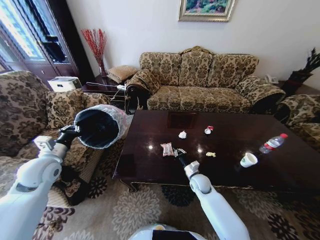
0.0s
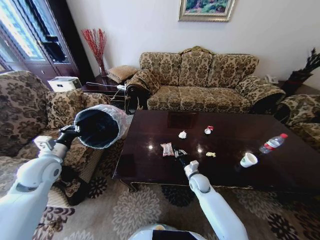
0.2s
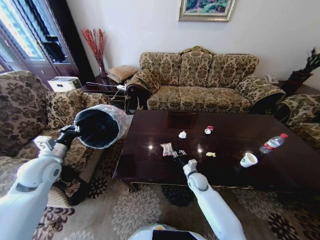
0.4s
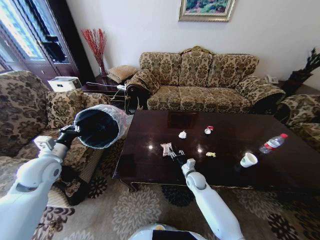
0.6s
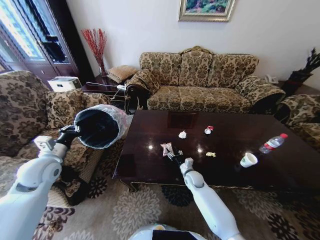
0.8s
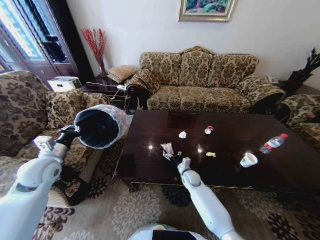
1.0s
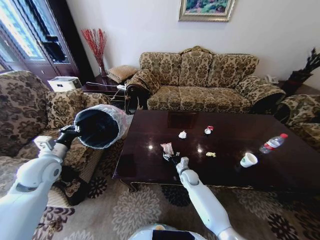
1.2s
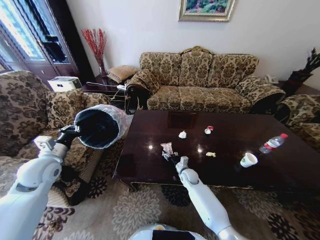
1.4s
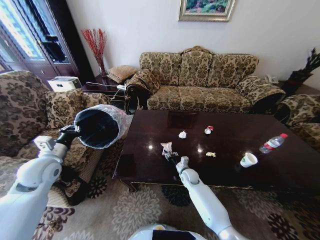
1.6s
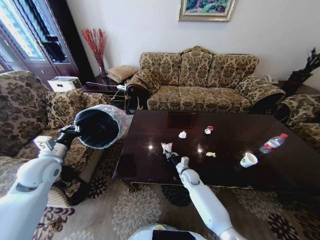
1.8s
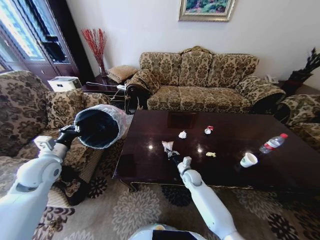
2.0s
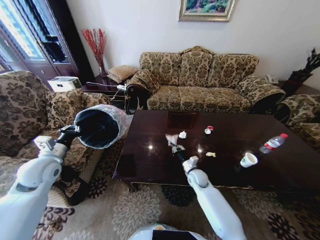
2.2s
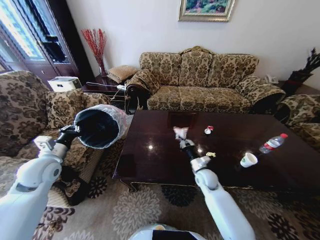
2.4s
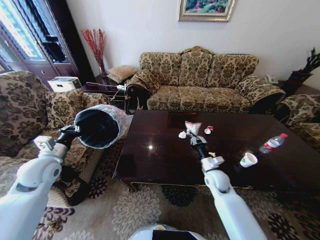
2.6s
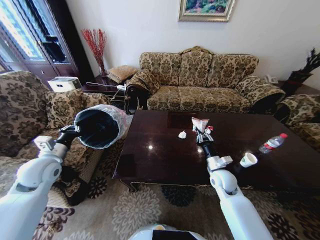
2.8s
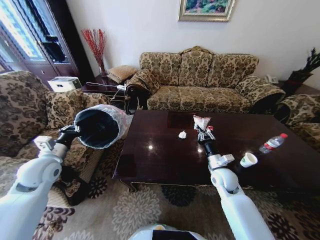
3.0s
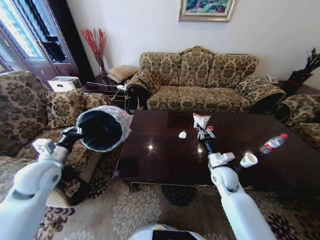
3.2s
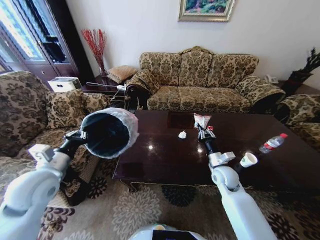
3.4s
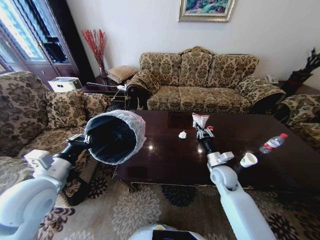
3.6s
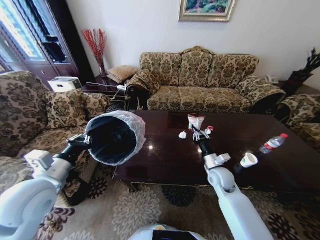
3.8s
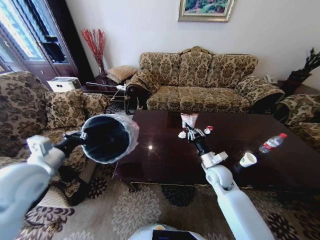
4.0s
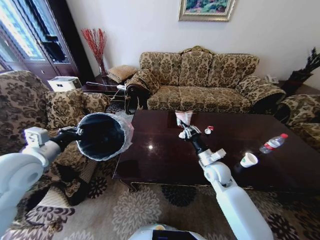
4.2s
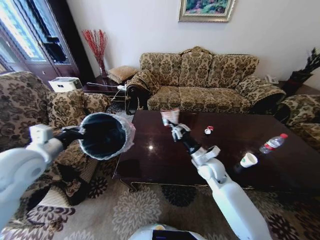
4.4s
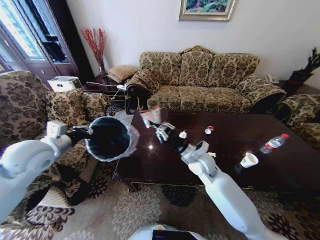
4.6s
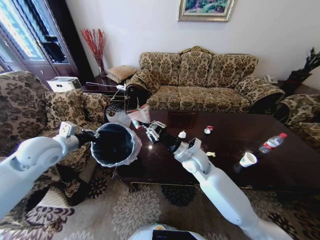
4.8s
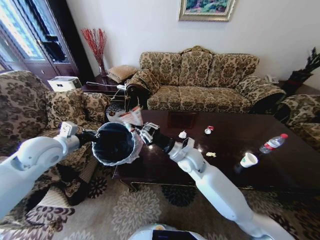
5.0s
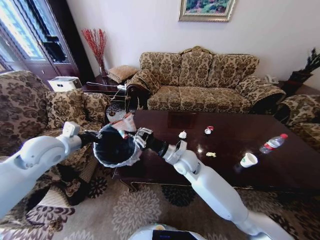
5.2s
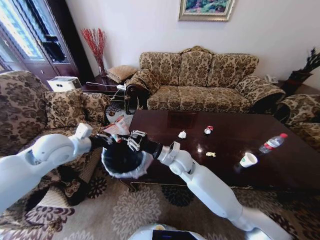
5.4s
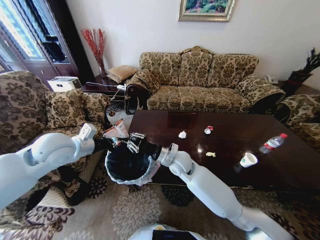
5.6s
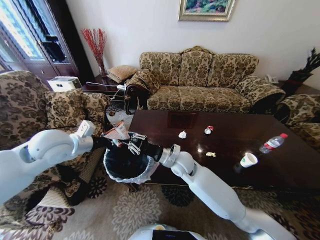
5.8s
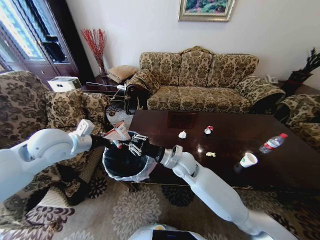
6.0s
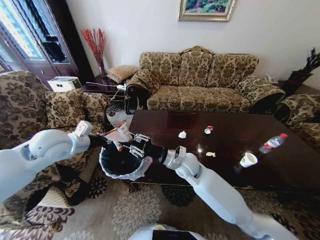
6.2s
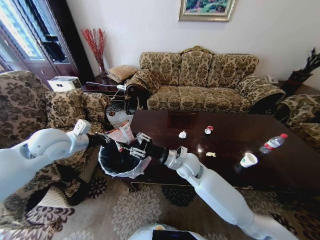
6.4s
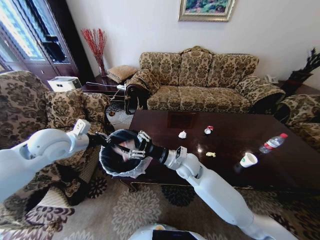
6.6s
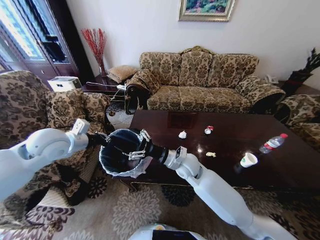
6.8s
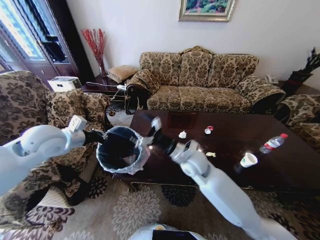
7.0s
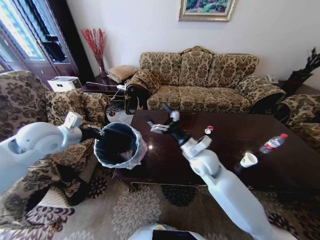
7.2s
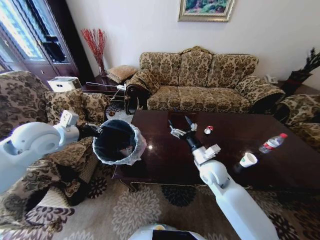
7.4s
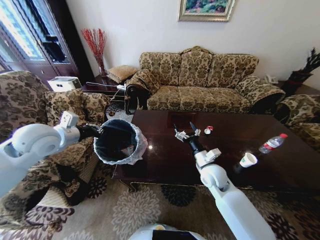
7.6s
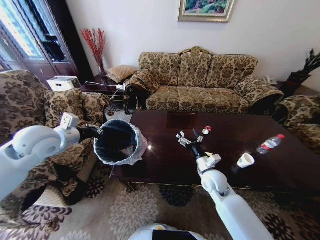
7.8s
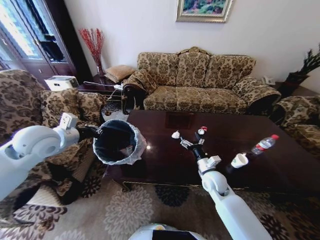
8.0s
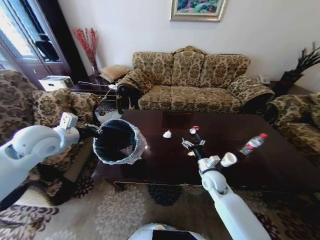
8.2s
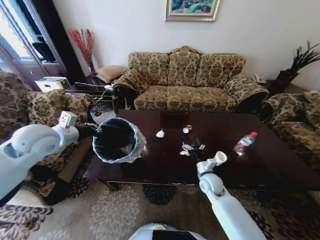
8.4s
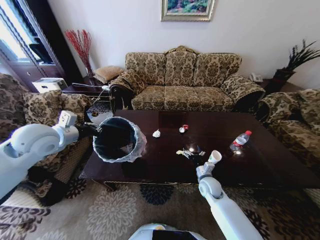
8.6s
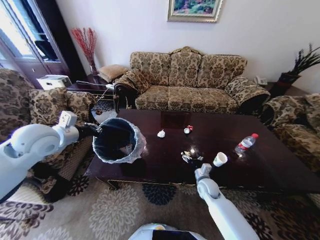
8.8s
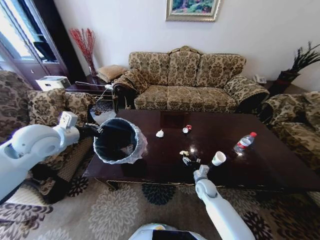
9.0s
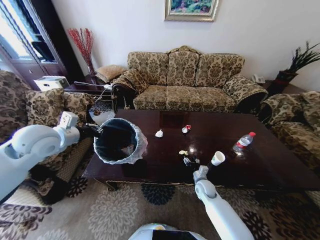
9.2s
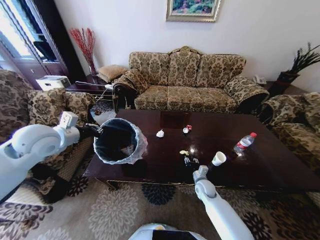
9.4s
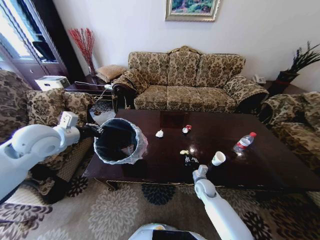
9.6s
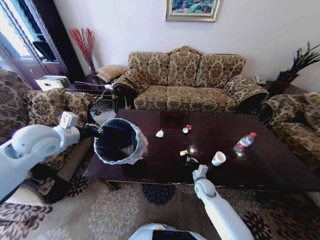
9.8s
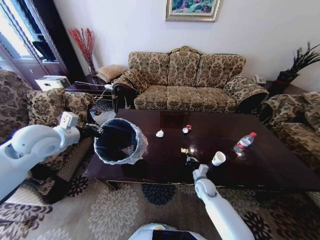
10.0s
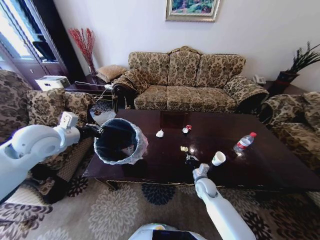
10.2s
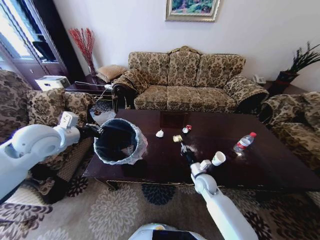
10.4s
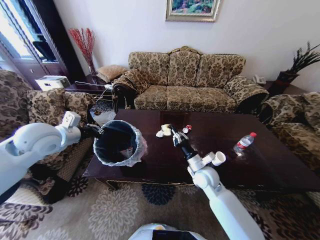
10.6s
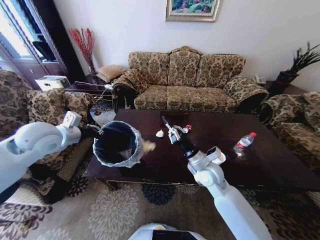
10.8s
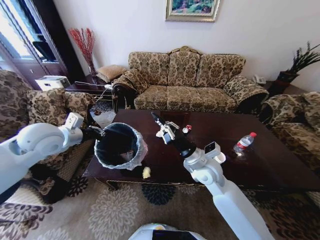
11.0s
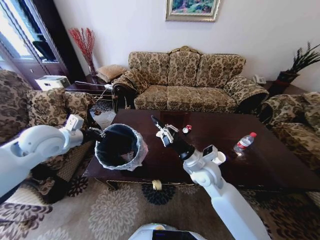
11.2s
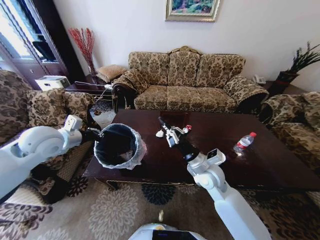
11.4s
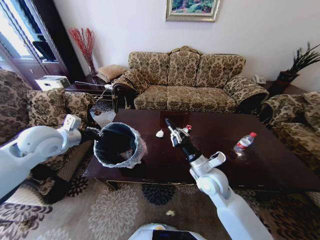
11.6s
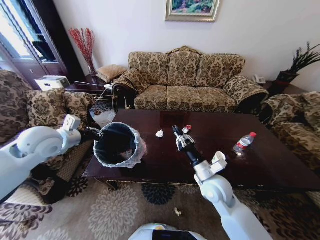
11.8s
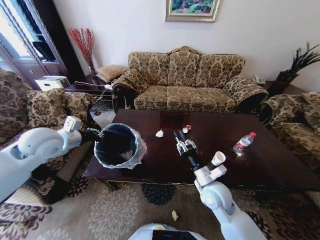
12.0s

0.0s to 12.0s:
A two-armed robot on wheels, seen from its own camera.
Task of the whole recording: Move to the front of the table and place the trash on the table into the trash bin.
0.0s to 1.6s: The right gripper shifts by about 5 cm, and opens up.
1.6s to 3.0s: The right gripper heads upward, to the right and backward, covering roughly 20 cm, and closes its fingers.
3.0s to 4.4s: The right gripper heads to the left, covering about 5 cm, while the left gripper goes some 10 cm upward.
4.4s to 6.0s: The right gripper shifts about 15 cm to the left. Meanwhile the left gripper shifts approximately 10 cm forward and to the right.
6.0s to 7.6s: The right gripper travels to the right by roughly 10 cm, and opens up.
7.6s to 9.0s: The right gripper travels downward by about 20 cm.
9.0s to 10.4s: The right gripper heads upward, covering some 5 cm, and closes its fingers.
10.4s to 12.0s: The right gripper is displaced upward and backward by some 15 cm, and opens its fingers.

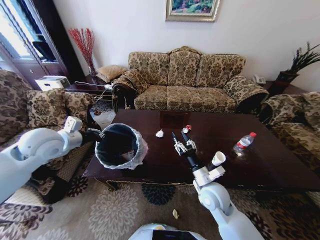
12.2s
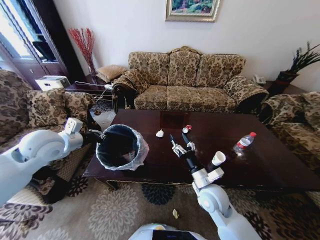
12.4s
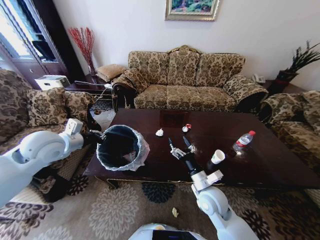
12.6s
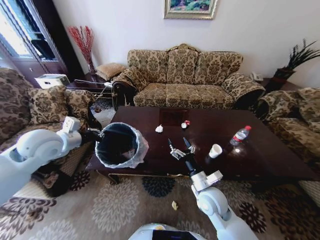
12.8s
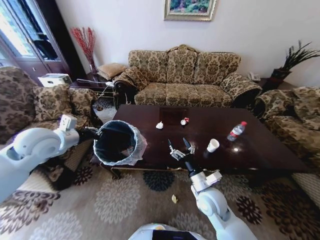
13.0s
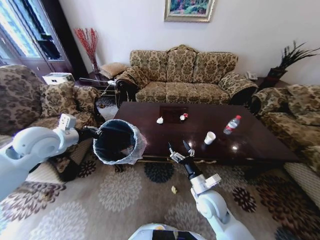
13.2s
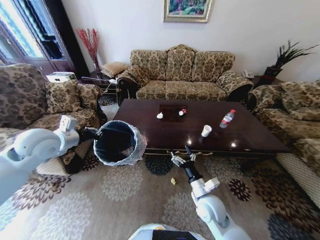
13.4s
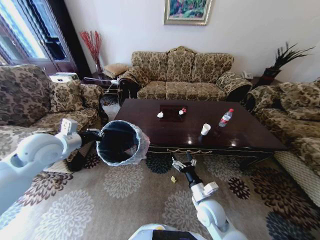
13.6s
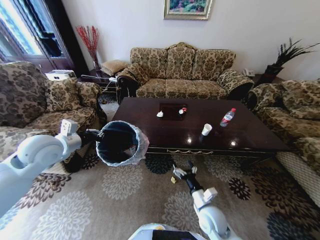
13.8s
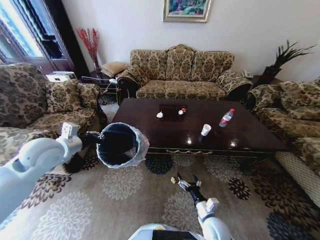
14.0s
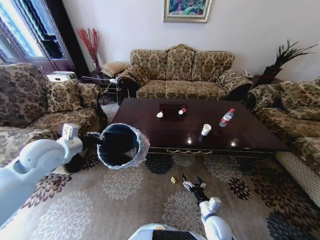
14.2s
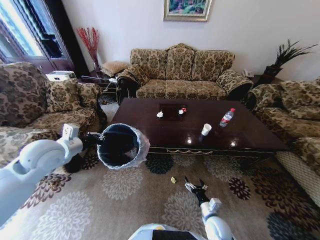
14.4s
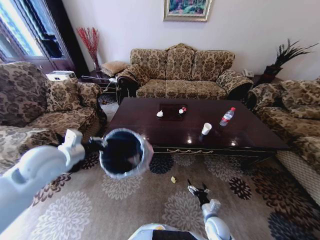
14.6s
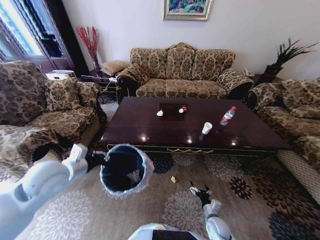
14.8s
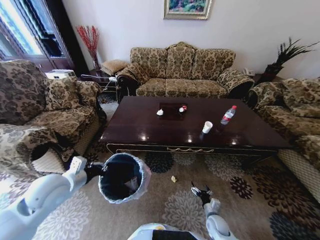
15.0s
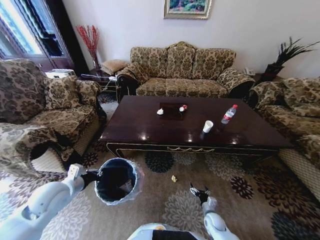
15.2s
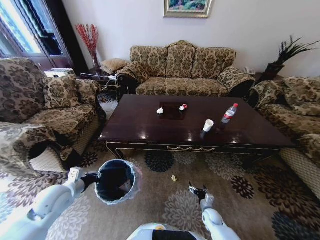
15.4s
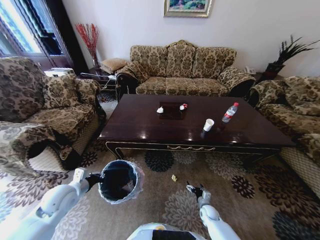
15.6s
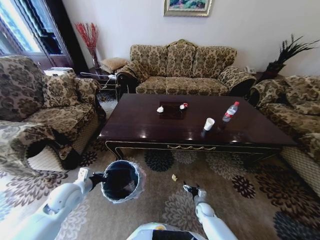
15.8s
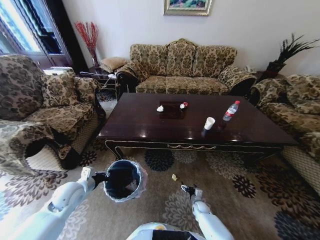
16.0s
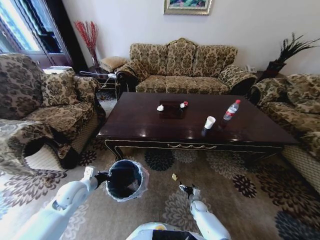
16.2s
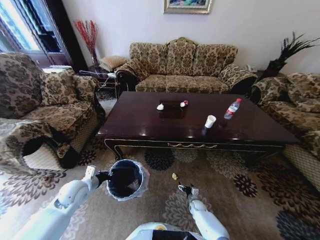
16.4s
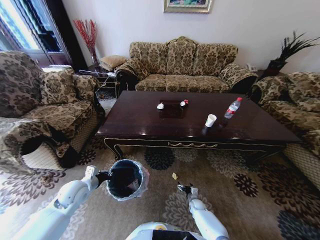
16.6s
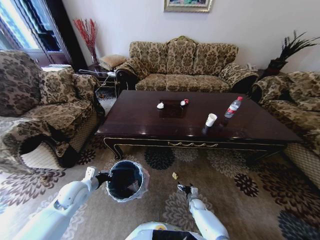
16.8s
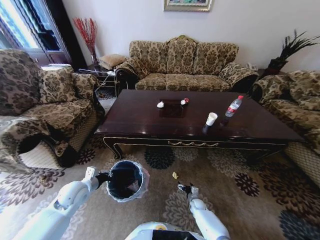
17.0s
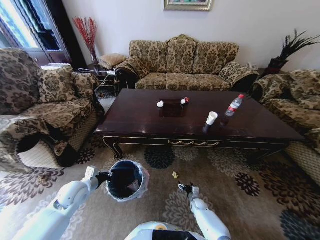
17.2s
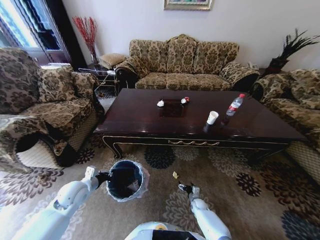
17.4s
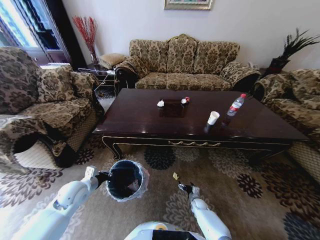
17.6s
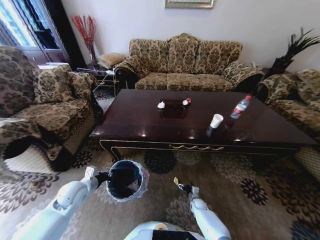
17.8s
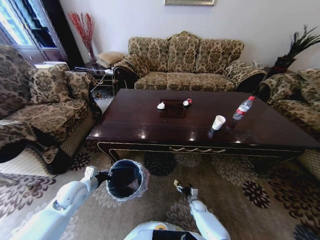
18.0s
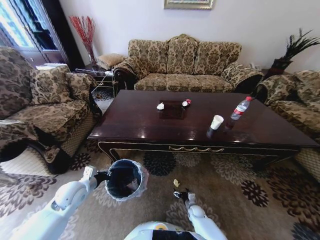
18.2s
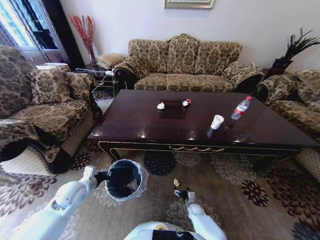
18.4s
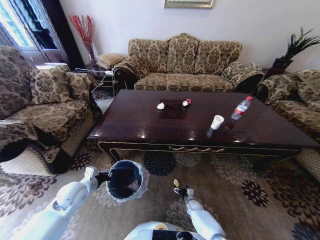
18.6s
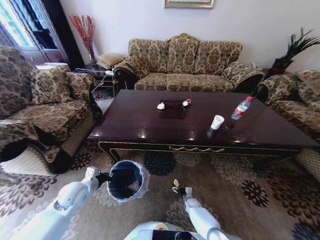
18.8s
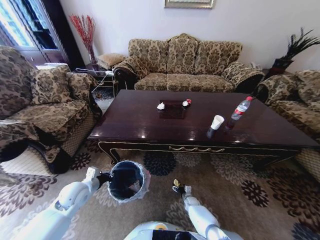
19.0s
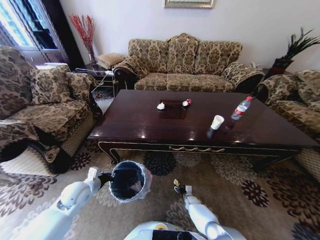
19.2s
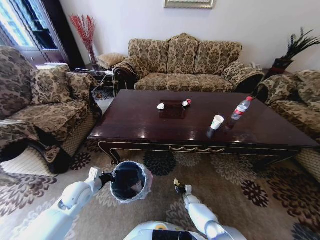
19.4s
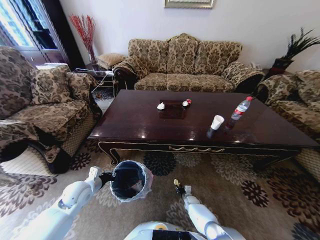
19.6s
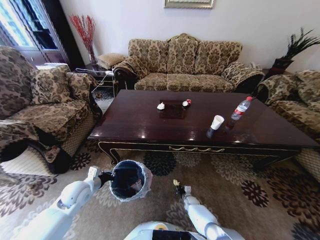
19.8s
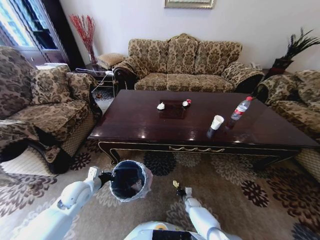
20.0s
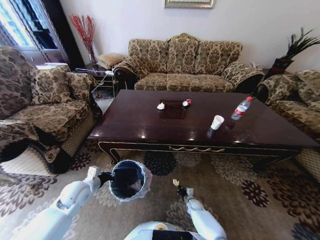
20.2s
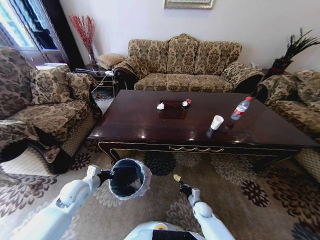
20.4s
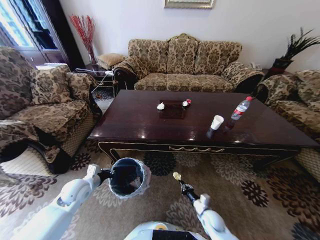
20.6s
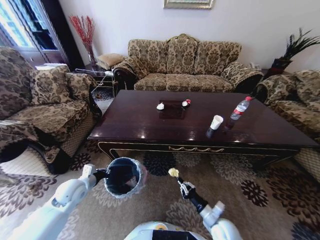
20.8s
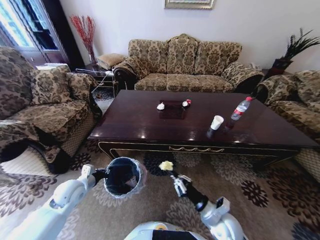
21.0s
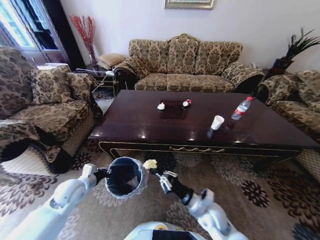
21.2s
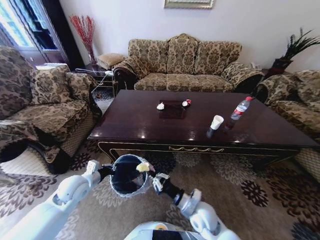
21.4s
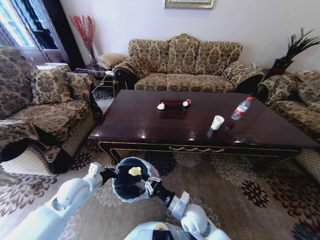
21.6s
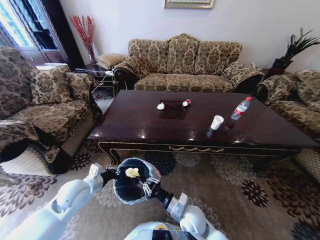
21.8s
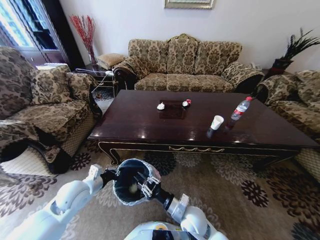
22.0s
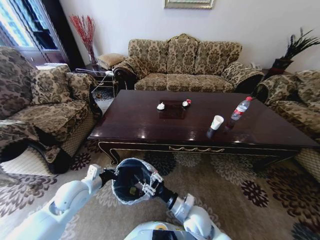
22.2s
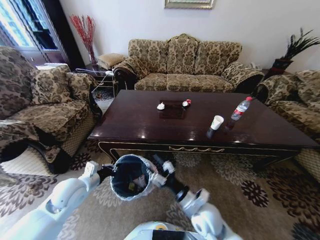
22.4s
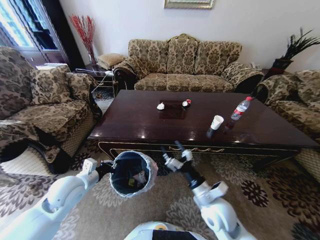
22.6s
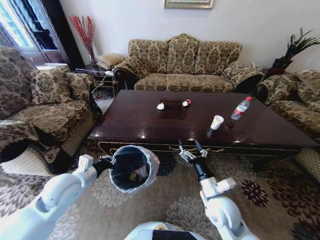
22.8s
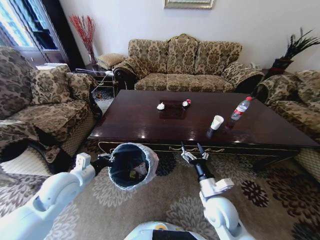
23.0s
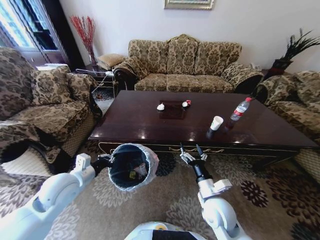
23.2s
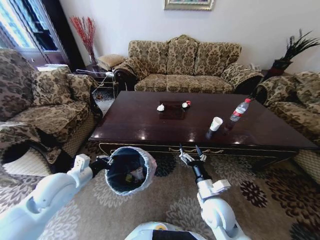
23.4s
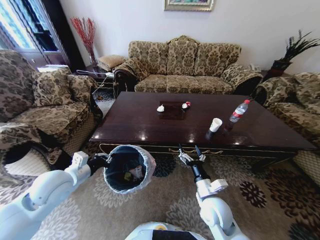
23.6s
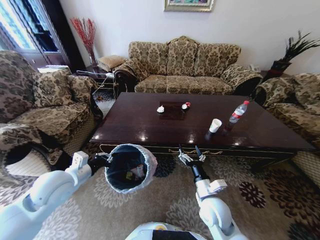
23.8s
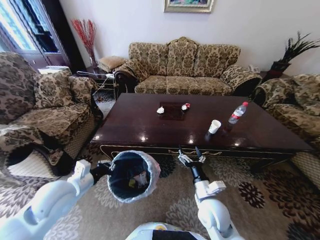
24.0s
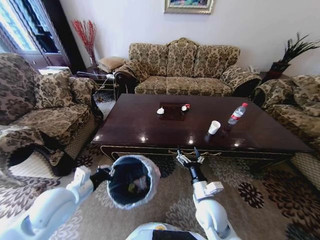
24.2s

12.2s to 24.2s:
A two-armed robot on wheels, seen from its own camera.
Task of the whole recording: Move to the front of the table and place the trash on the table into the trash bin.
12.2s to 13.8s: The right gripper heads downward and backward, covering about 10 cm, and opens its fingers.
13.8s to 15.2s: The left gripper shifts about 15 cm downward and backward, while the right gripper shifts some 20 cm downward and to the right.
15.2s to 16.6s: The left gripper goes some 10 cm downward. Meanwhile the right gripper goes approximately 10 cm forward, downward and to the left.
18.2s to 19.8s: The right gripper is displaced forward by about 5 cm, and closes its fingers.
19.8s to 21.2s: The right gripper shifts about 30 cm upward.
21.2s to 22.6s: Both grippers move upward, about 5 cm. The right gripper opens up.
22.6s to 24.2s: The left gripper heads backward, covering approximately 5 cm.
